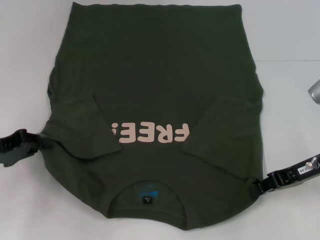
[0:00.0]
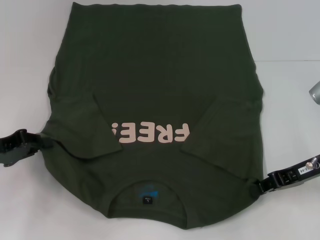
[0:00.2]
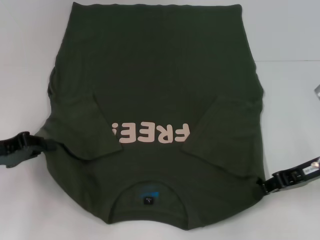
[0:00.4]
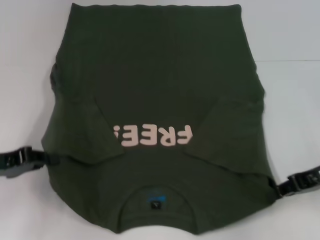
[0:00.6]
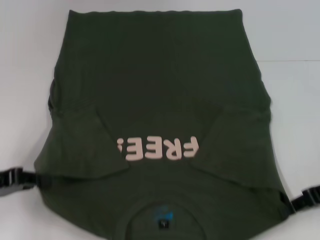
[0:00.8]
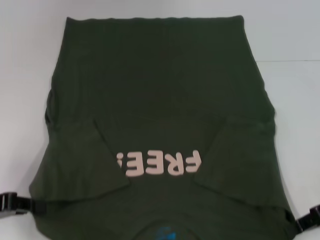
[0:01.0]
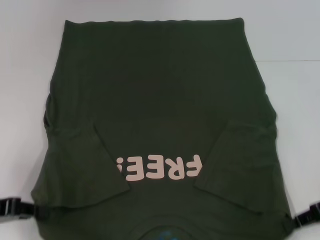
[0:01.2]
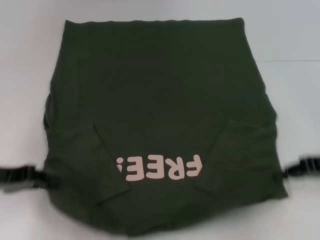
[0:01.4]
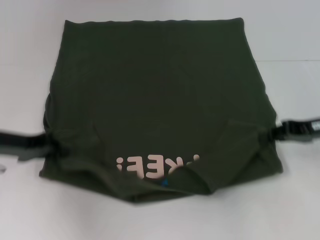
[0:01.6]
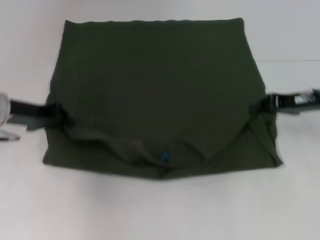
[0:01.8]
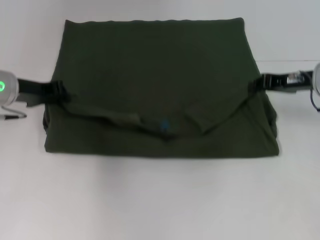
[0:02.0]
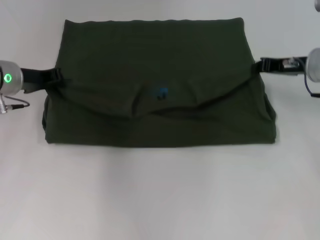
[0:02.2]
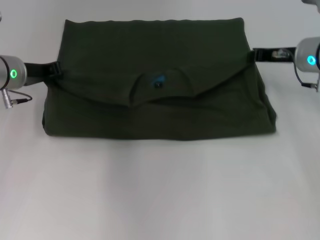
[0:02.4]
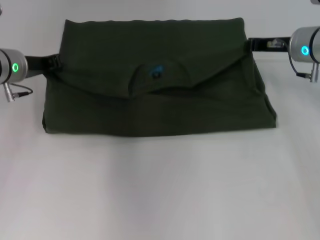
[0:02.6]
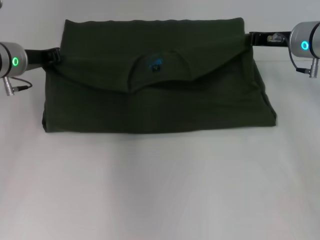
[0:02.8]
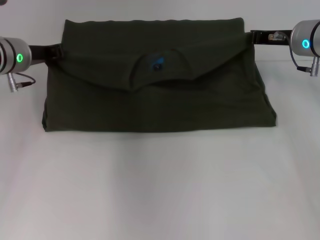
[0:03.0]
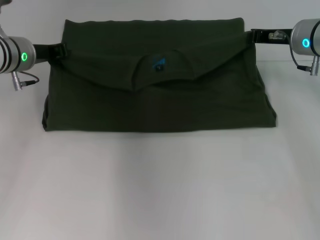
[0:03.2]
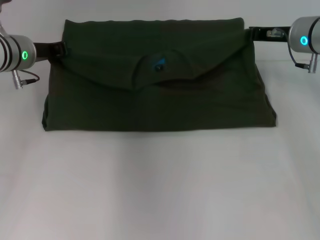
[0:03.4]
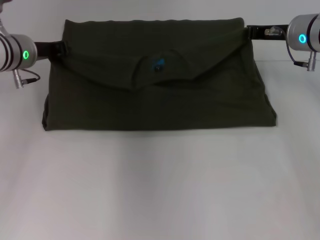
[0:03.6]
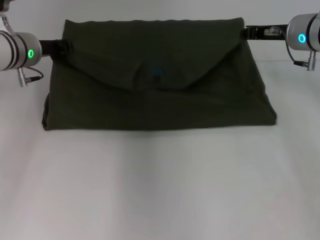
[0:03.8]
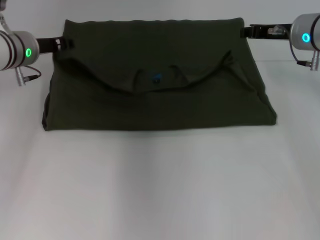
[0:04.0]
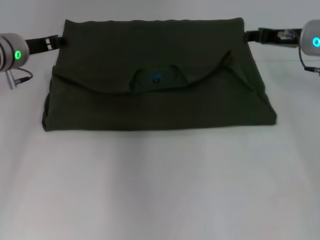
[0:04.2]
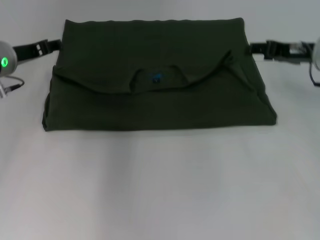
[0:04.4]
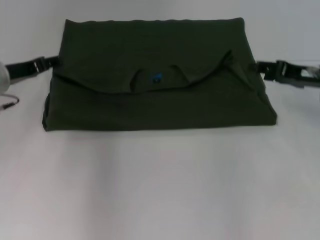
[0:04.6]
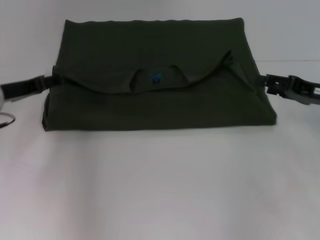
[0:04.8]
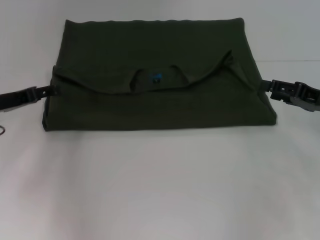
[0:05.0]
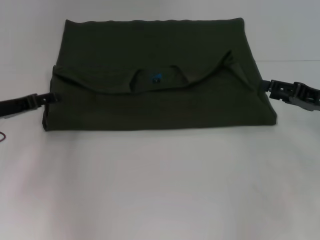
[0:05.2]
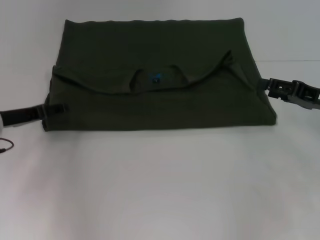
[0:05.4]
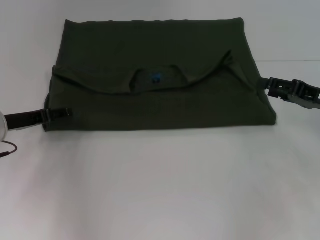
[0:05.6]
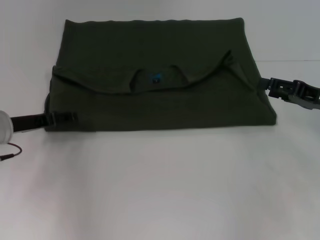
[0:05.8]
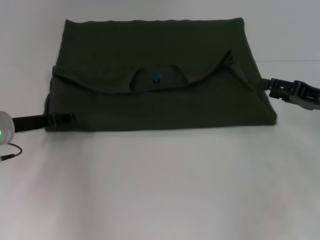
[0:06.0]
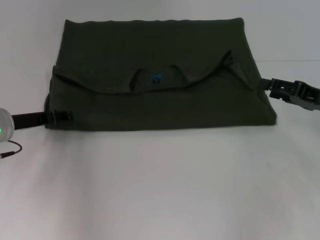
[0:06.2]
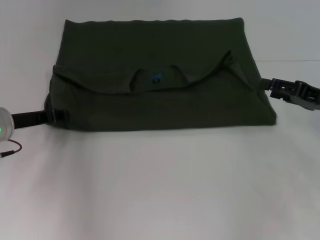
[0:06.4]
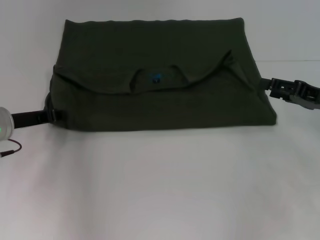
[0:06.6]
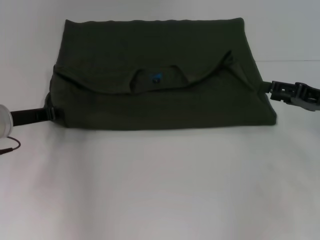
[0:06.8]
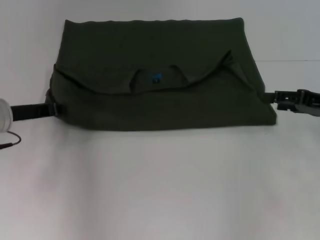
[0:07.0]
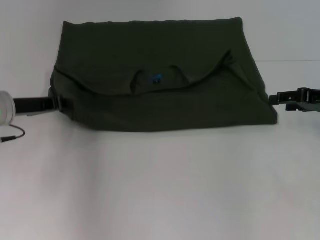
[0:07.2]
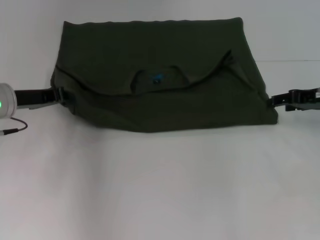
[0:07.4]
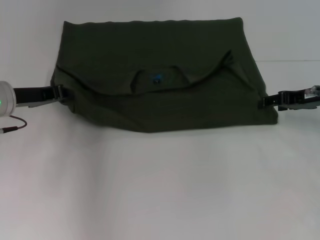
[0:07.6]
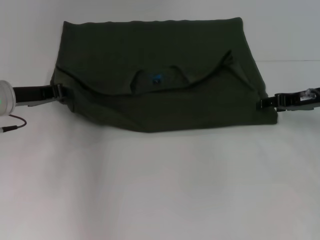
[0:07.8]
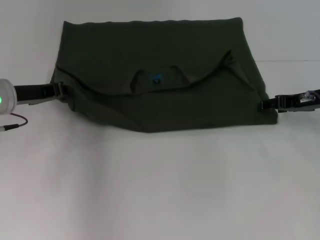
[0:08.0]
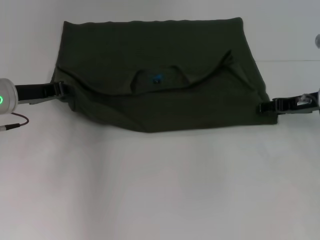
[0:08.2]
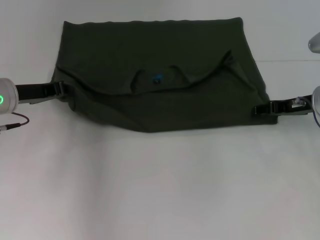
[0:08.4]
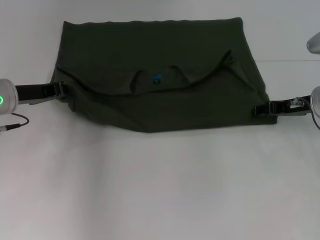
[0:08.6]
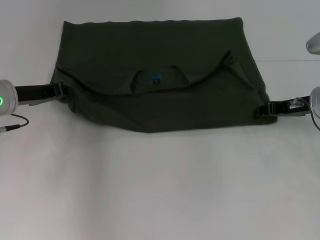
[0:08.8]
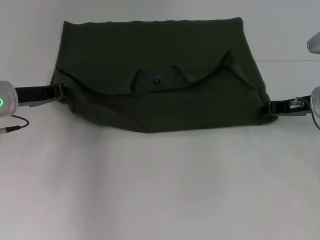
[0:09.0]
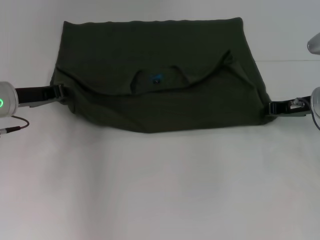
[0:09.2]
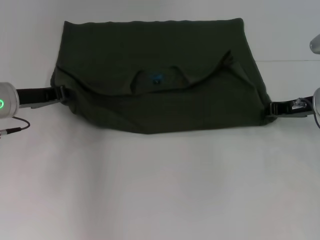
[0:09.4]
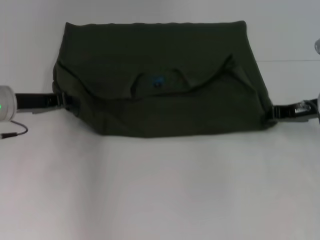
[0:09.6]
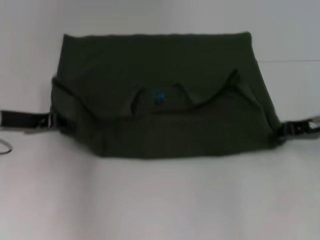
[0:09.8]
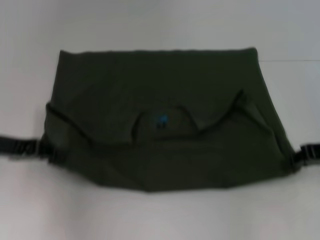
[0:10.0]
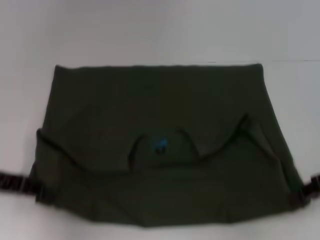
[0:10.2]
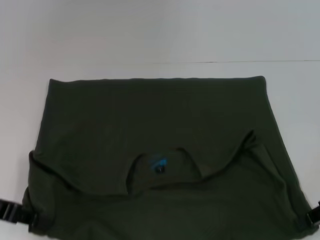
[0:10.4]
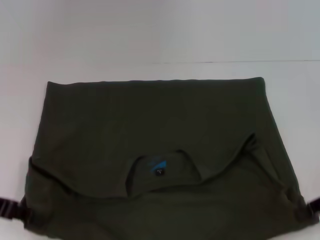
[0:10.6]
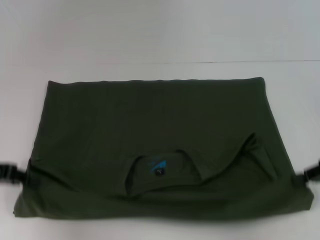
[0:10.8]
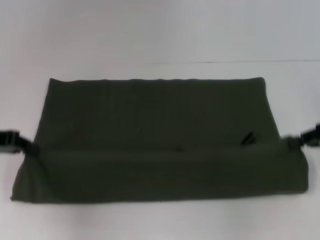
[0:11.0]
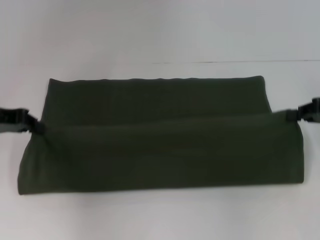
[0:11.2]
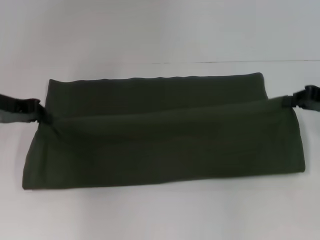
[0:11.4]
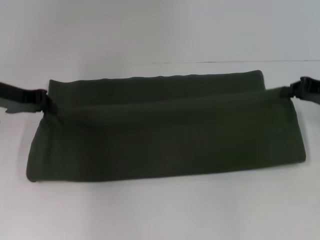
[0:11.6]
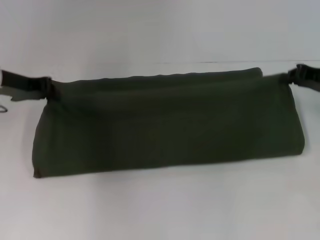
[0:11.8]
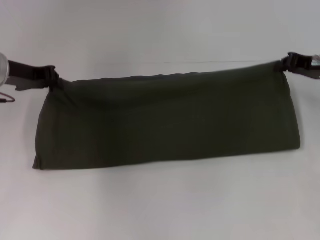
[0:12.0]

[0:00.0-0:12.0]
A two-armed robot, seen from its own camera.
Step, 0:00.2 to 0:03.8: Fold the clothes with your right hand.
Step, 0:04.2 to 0:10.4: Pull the clothes with your left hand.
Step, 0:04.2 to 0:10.4: Pull the clothes with your right hand.
0:00.0 to 0:01.6: The left gripper changes place by approximately 5 cm.
0:01.6 to 0:03.0: The left gripper moves forward and to the right, approximately 15 cm; the right gripper travels forward and to the left by some 15 cm.
0:03.0 to 0:04.4: The right gripper opens its fingers. The left gripper opens up.
0:04.4 to 0:06.0: The left gripper goes about 10 cm backward and downward. The right gripper heads backward, covering some 10 cm.
0:06.0 to 0:07.6: The left gripper closes its fingers. The right gripper shifts approximately 5 cm forward.
0:07.6 to 0:09.0: The right gripper closes its fingers.
0:09.0 to 0:10.4: The right gripper goes some 15 cm backward and to the right, while the left gripper goes roughly 10 cm backward.
0:10.4 to 0:12.0: The grippers both shift forward by some 15 cm.

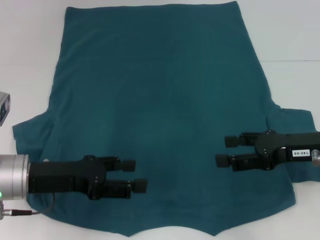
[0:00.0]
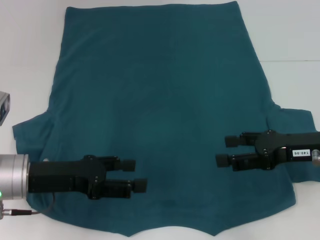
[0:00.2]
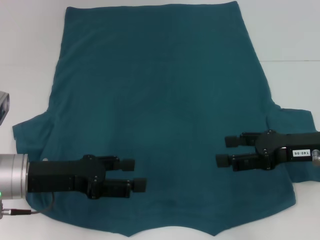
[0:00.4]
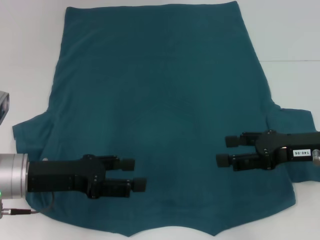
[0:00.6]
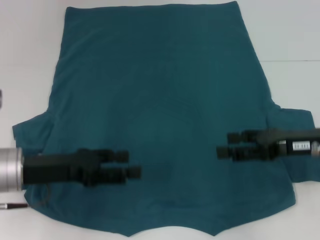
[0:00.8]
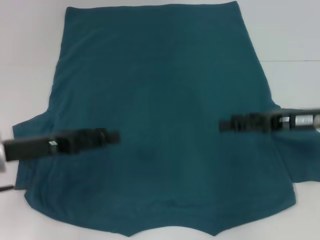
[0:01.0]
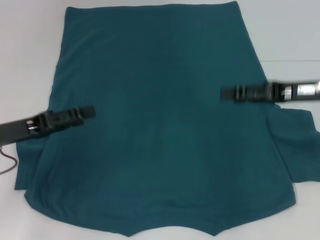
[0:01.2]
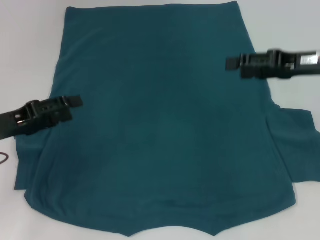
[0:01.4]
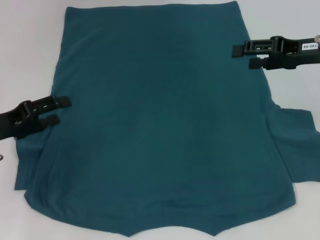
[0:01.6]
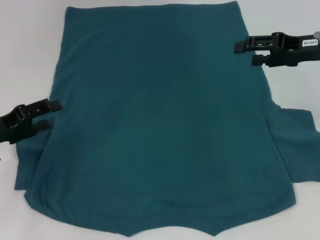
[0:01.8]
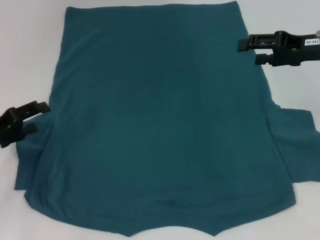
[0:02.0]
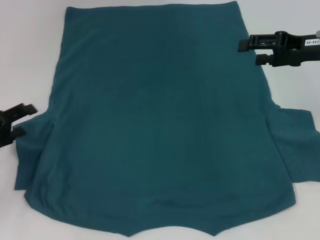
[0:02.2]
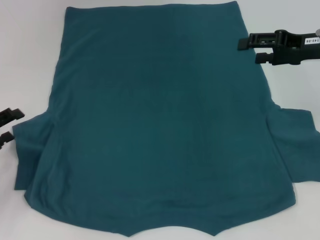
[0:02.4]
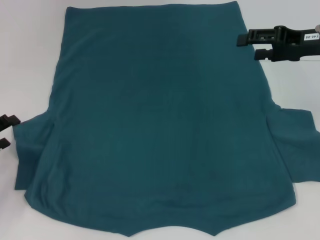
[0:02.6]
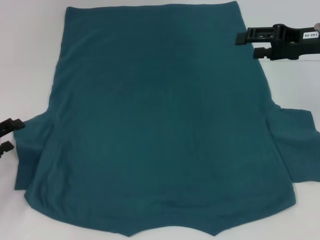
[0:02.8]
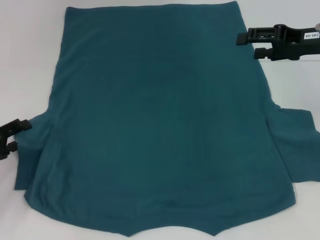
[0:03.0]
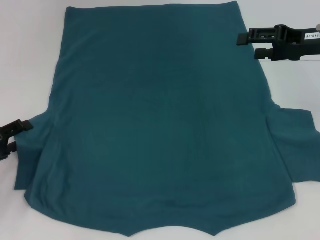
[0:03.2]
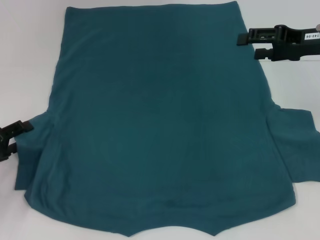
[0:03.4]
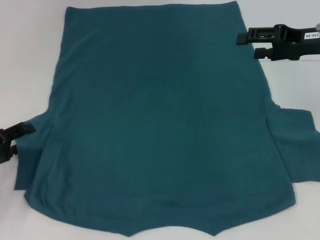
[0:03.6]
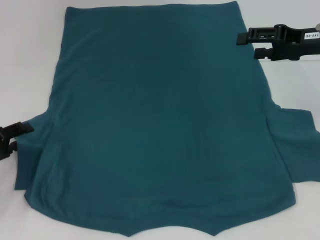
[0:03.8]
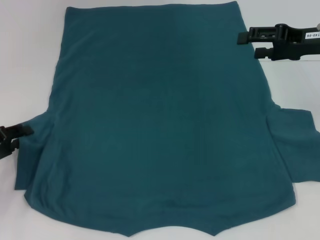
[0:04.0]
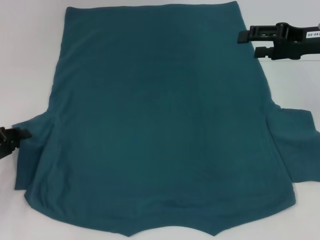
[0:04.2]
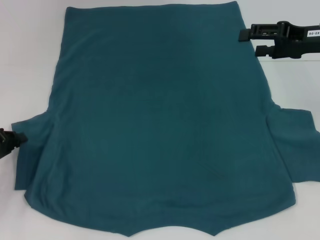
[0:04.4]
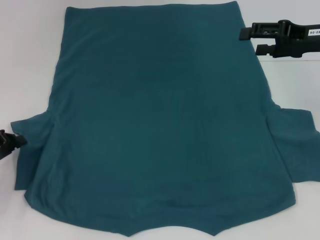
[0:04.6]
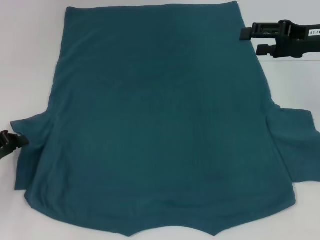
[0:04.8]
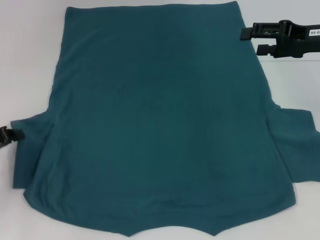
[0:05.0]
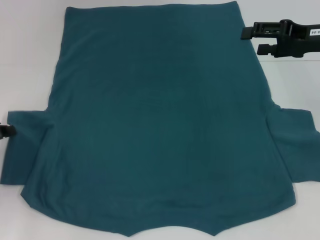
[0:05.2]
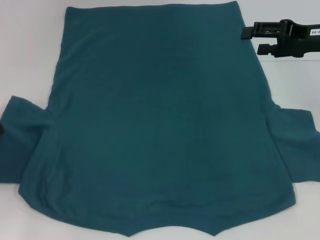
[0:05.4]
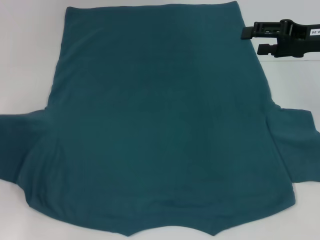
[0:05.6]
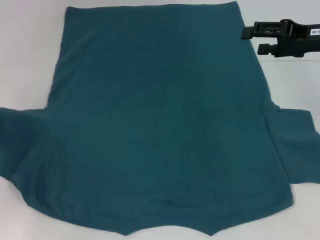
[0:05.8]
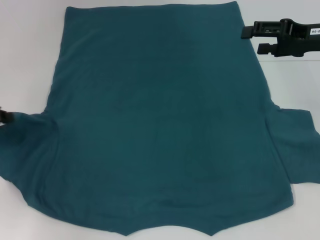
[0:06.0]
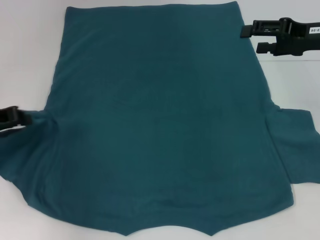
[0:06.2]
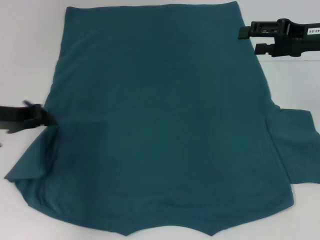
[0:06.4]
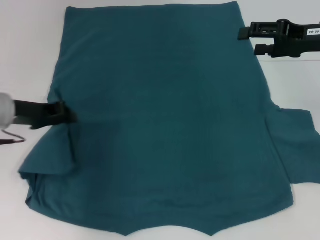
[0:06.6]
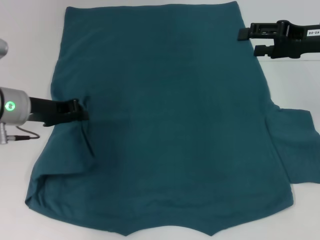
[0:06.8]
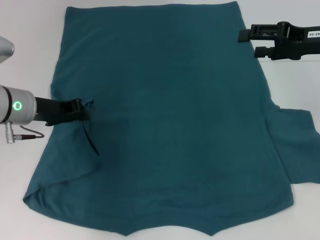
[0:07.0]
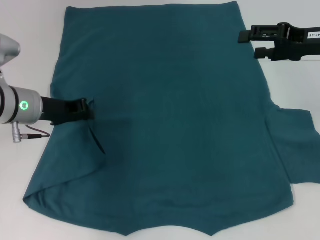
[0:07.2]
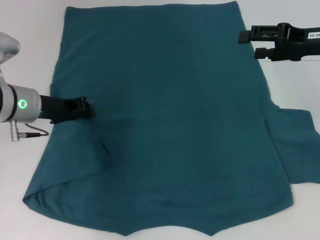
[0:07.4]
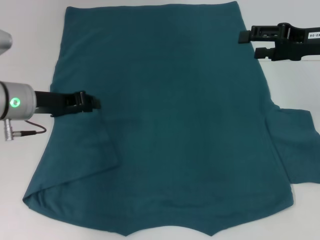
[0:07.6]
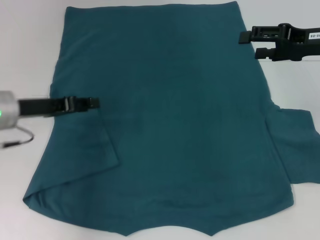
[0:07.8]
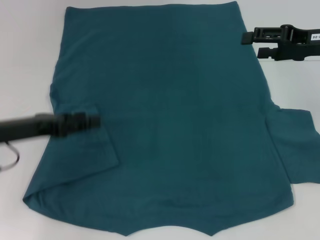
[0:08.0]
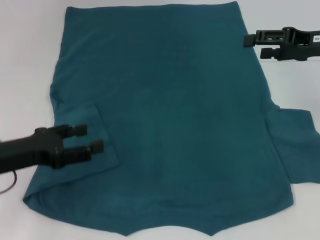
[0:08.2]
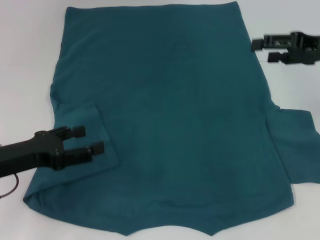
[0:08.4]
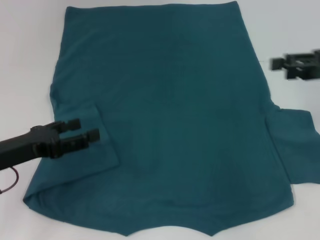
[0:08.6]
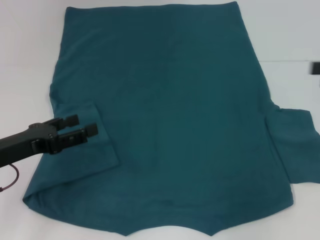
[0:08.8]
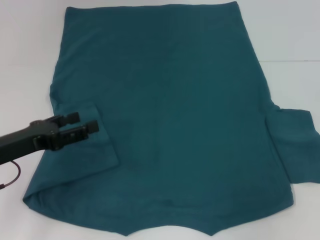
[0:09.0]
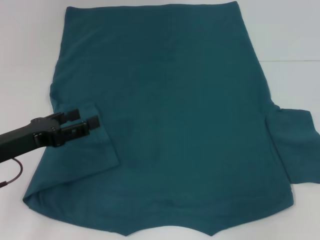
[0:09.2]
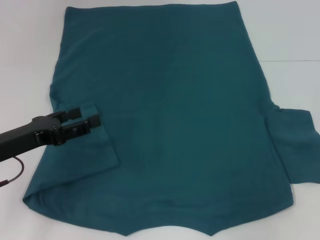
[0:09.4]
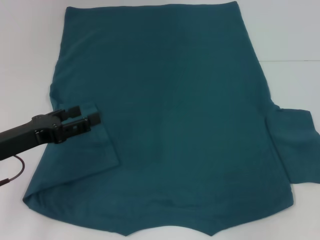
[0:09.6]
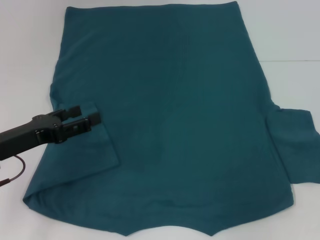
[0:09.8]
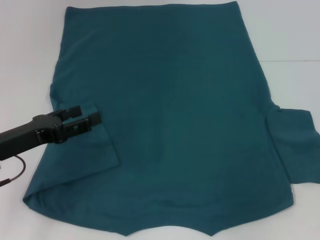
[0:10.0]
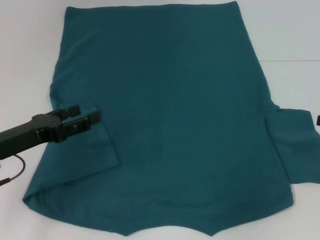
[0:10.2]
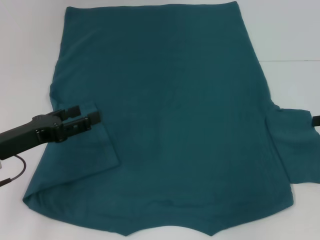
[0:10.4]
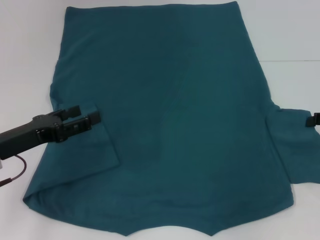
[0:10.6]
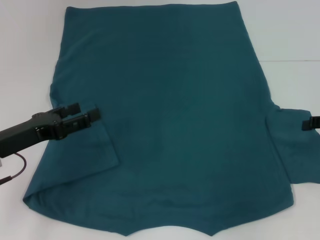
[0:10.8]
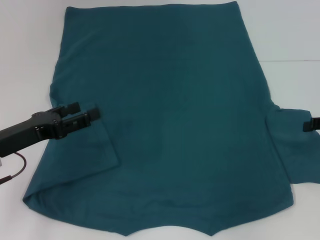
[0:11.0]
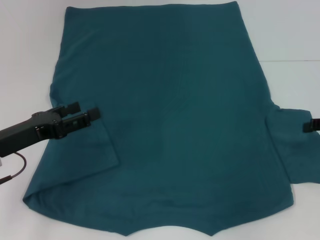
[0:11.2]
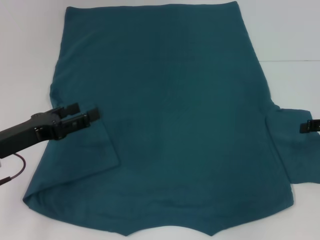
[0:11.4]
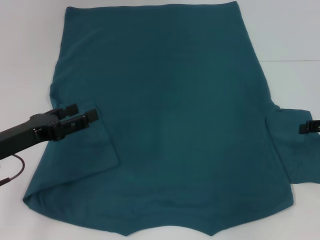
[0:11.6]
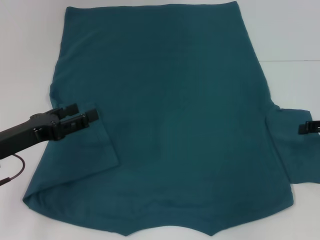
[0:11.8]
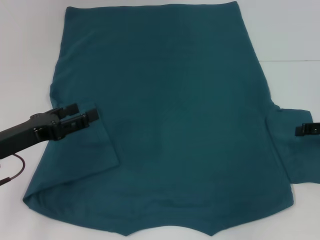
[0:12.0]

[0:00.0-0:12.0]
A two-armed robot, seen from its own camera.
Step, 0:00.0 to 0:07.4: Fold the bottom left sleeve with your left hand.
0:00.0 to 0:01.6: The right gripper heads forward and upward, covering approximately 10 cm. The left gripper goes some 10 cm to the left.
0:01.6 to 0:03.0: The left gripper goes some 5 cm downward.
0:03.0 to 0:04.4: The left gripper closes its fingers.
0:04.4 to 0:06.0: The left gripper heads upward, covering roughly 5 cm, and closes its fingers.
0:06.0 to 0:07.6: The left gripper moves to the right, some 10 cm.
0:07.6 to 0:09.0: The right gripper goes approximately 15 cm to the right and backward. Meanwhile the left gripper shifts approximately 10 cm backward, and opens its fingers.
0:10.4 to 0:12.0: There are only small adjustments of the grippers.
